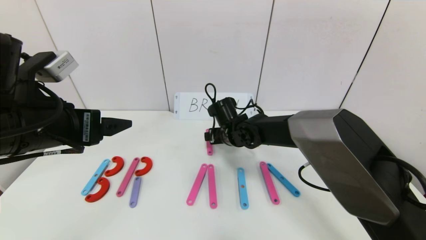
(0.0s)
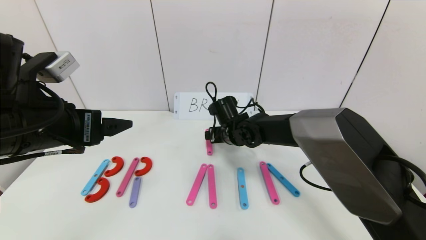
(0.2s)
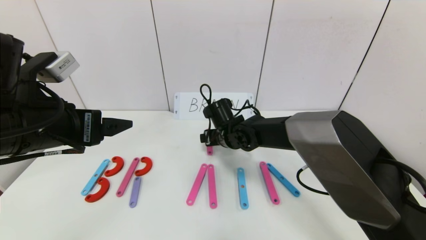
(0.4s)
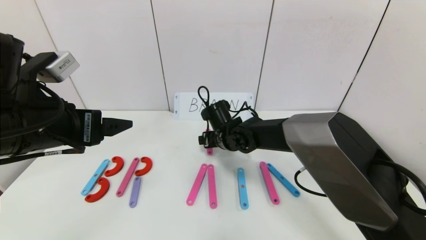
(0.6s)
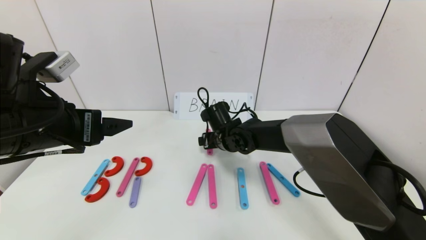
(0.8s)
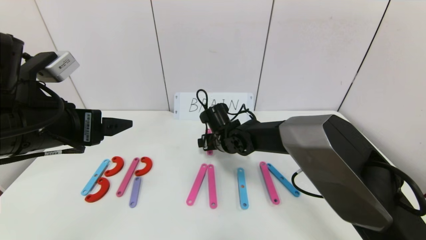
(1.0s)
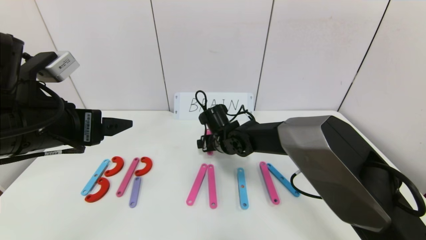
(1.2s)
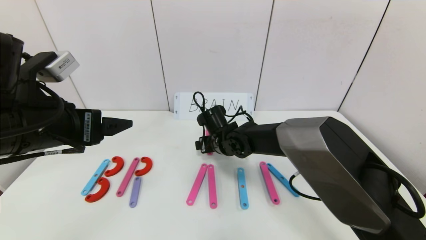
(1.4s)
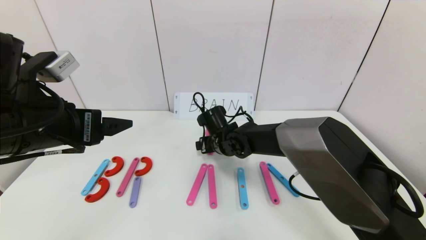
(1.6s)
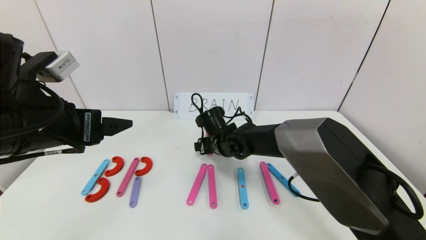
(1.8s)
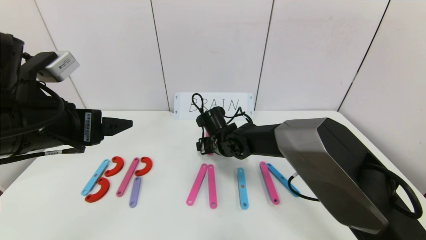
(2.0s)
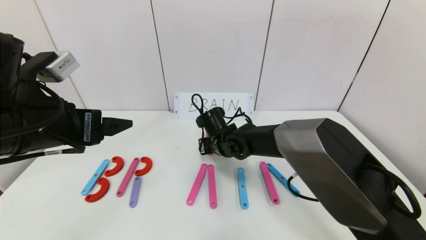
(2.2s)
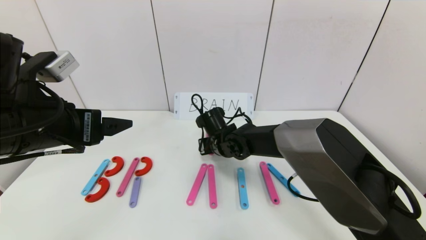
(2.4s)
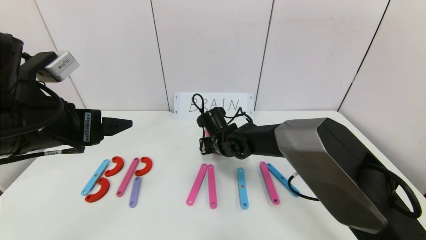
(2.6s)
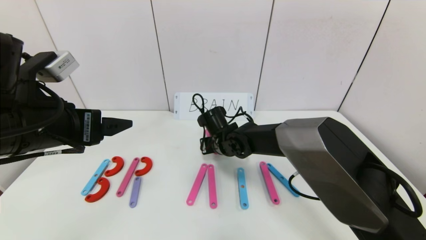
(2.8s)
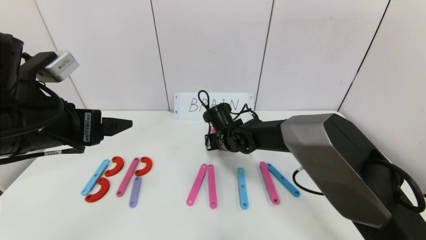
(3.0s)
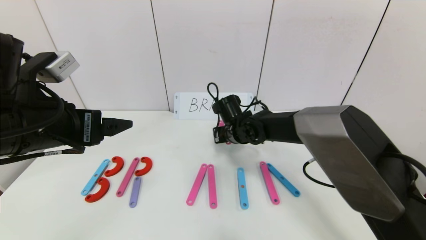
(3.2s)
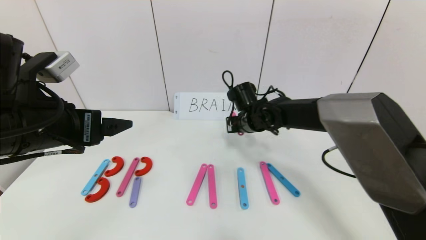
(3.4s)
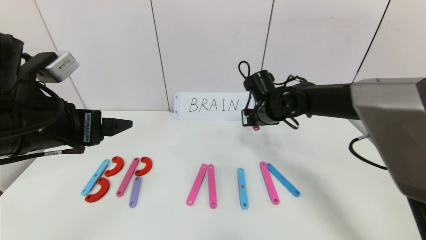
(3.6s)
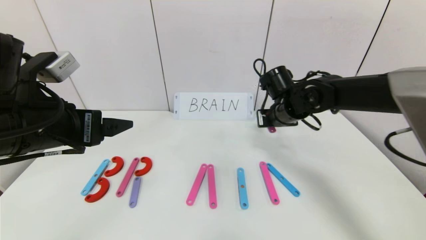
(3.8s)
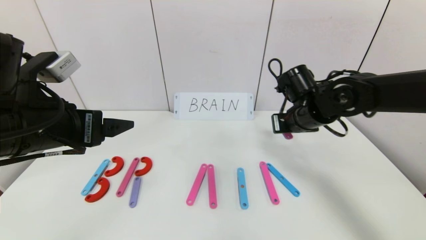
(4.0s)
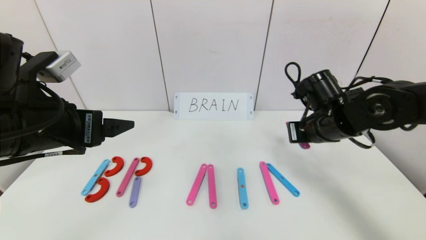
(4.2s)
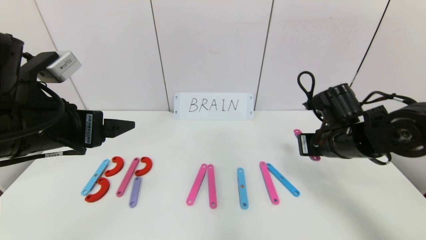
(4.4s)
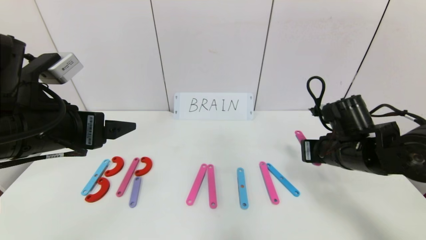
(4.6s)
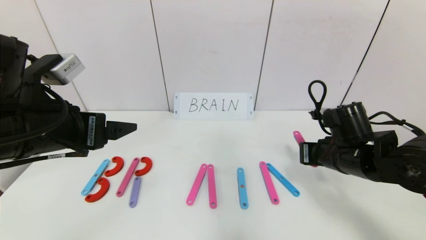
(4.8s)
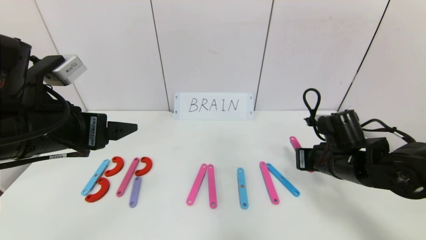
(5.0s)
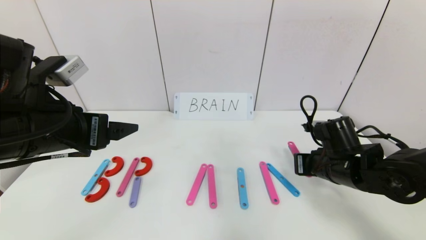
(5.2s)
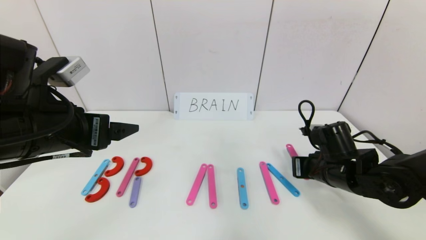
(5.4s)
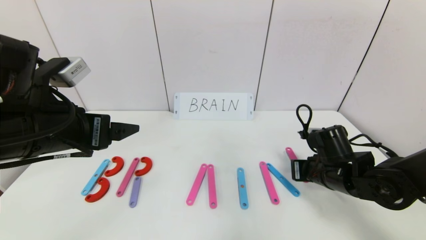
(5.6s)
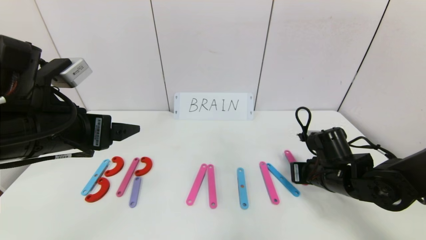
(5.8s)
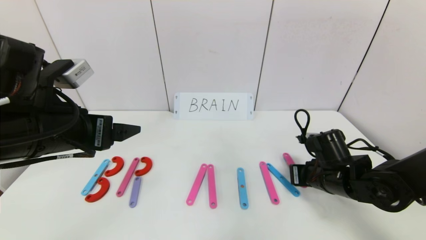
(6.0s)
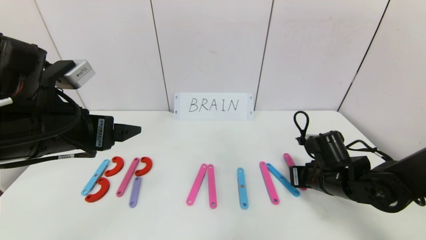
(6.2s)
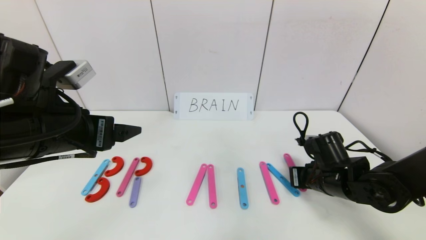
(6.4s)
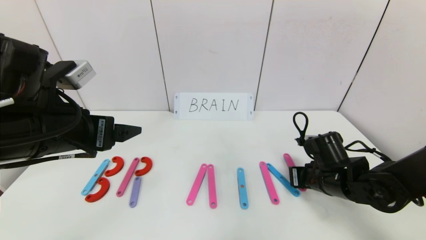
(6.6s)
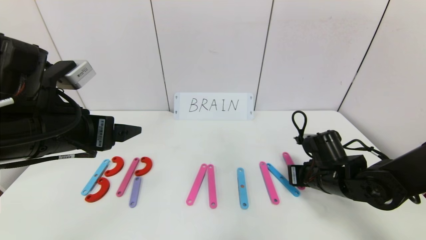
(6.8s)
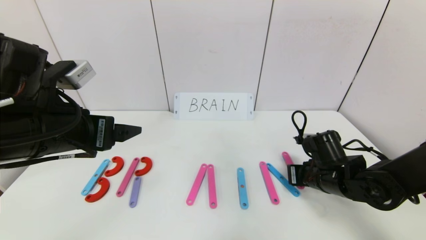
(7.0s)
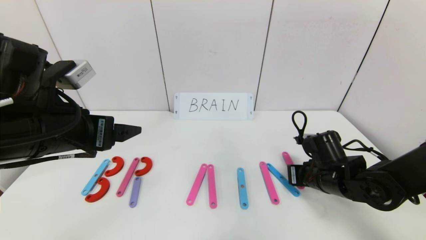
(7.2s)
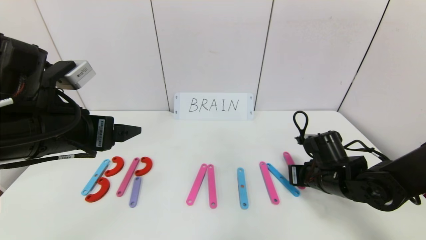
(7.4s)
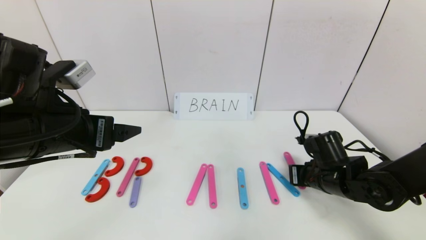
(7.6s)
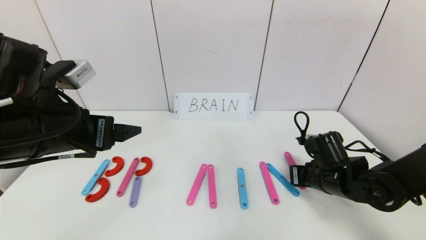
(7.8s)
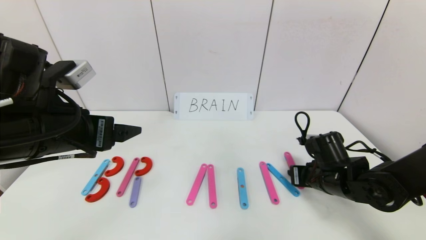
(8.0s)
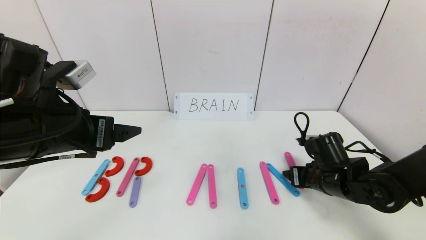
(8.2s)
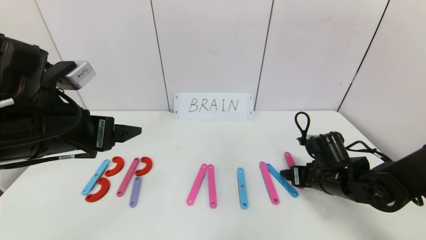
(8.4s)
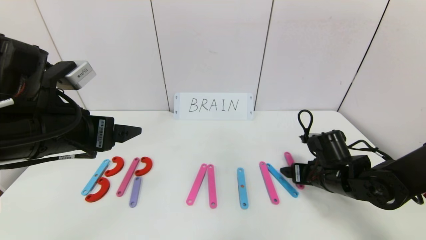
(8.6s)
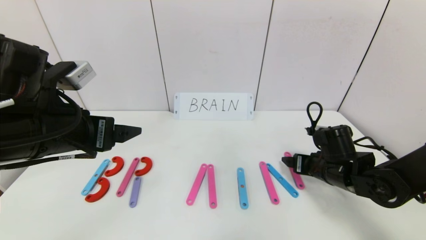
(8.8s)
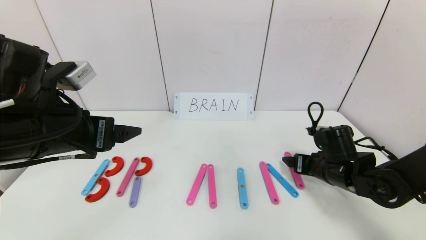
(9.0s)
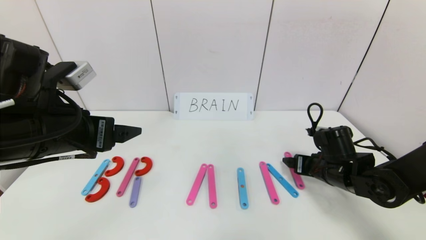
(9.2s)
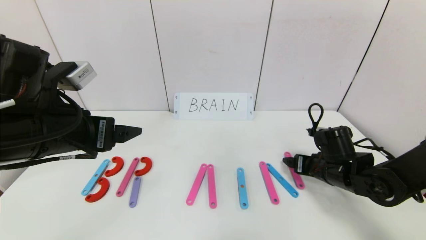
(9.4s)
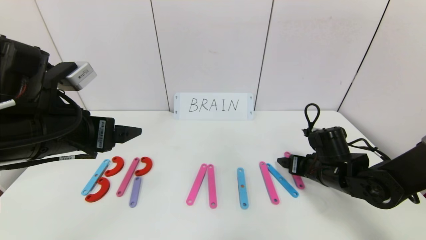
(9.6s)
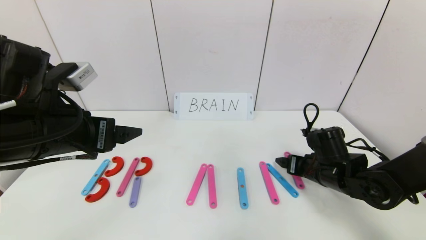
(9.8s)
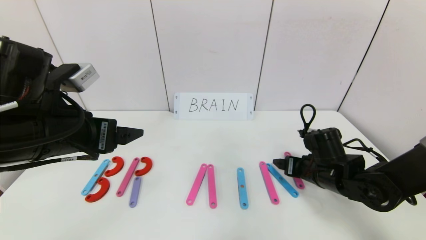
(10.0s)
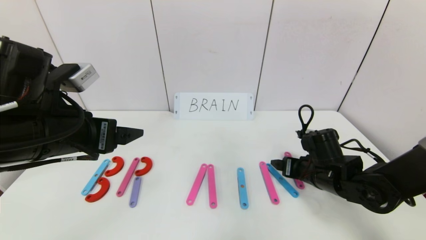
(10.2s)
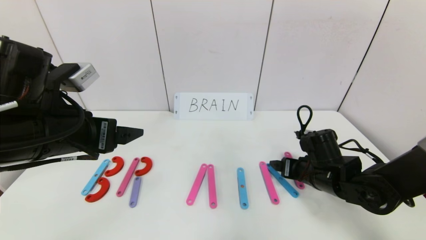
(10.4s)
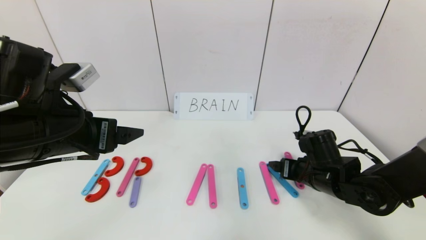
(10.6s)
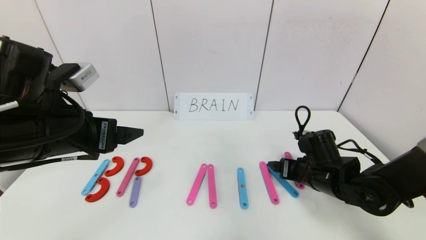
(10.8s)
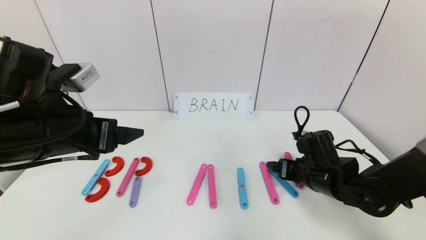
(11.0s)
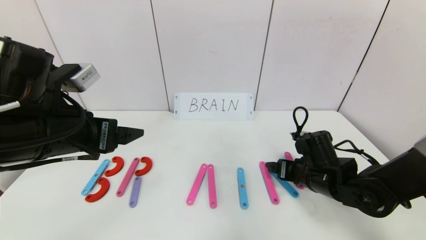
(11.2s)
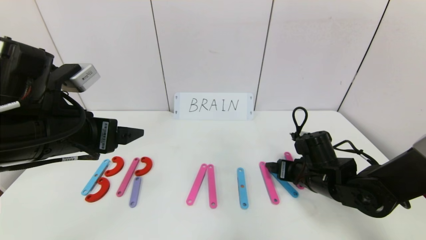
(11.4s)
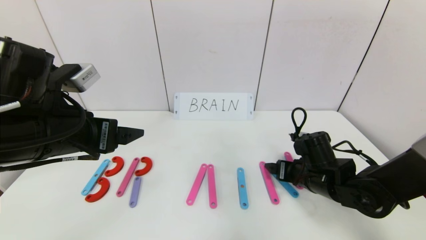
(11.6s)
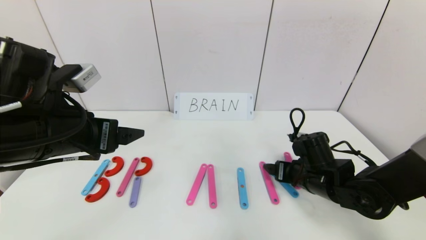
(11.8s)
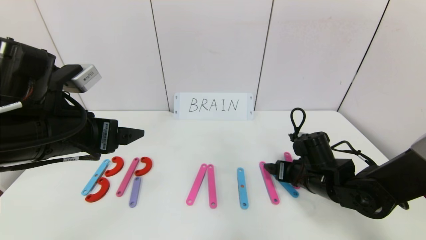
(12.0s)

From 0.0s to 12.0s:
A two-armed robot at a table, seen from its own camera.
Task of the whole recording: rearrange the word baai as brain.
From 0.0s to 1.6s: The grippers stay close to where they were, moving slightly.
From 1.6s to 3.0s: The right gripper closes its fingers.
From 3.0s to 4.4s: The right gripper shifts some 25 cm to the right, backward and upward.
From 4.4s to 6.0s: The right gripper heads downward, covering some 10 cm.
From 6.0s to 7.6s: Both grippers stay about where they are.
From 7.6s to 9.0s: The right gripper opens up.
From 9.0s to 12.0s: There are only small adjustments of the grippers.

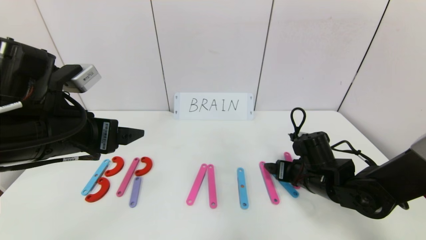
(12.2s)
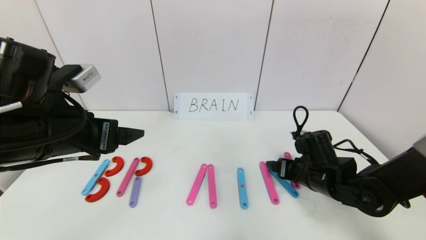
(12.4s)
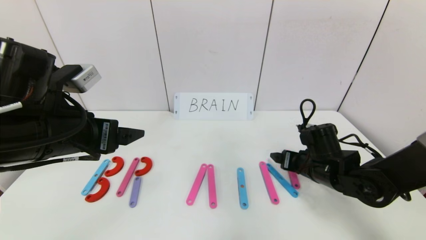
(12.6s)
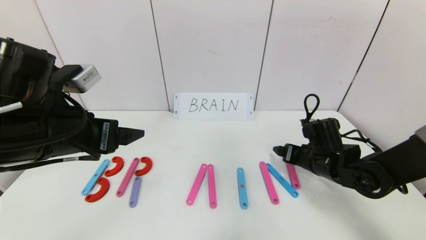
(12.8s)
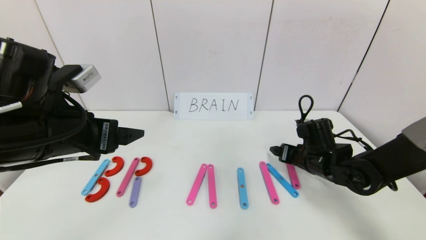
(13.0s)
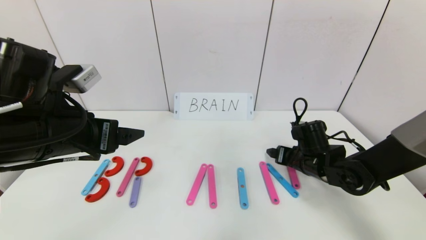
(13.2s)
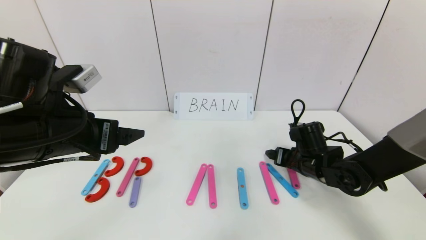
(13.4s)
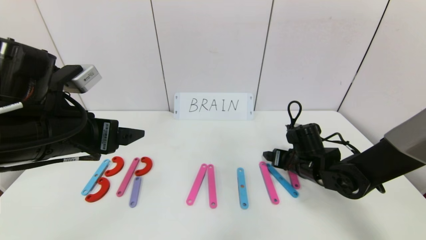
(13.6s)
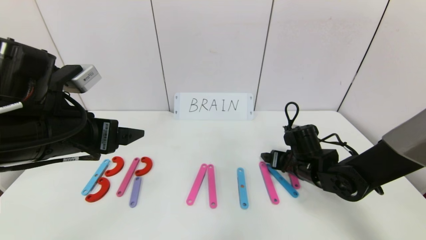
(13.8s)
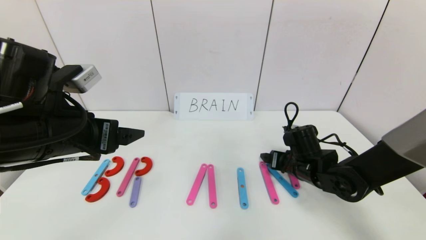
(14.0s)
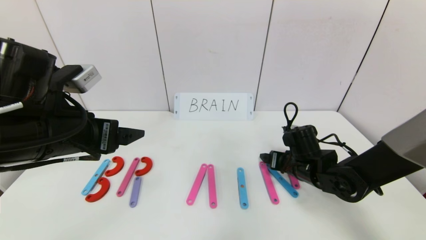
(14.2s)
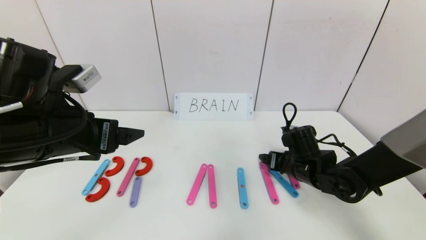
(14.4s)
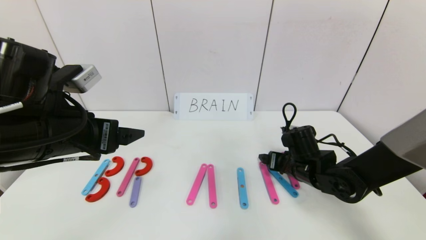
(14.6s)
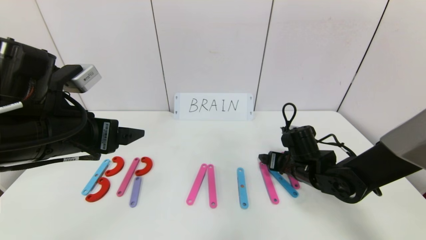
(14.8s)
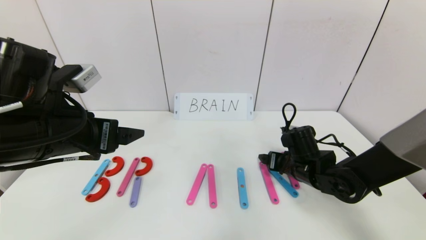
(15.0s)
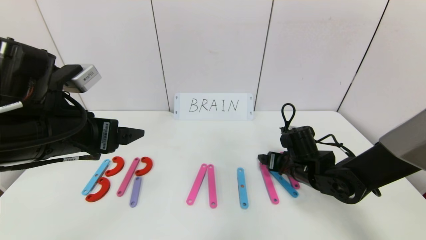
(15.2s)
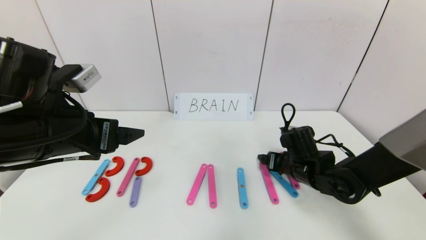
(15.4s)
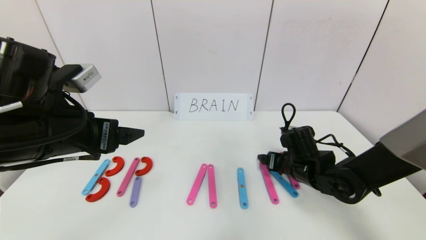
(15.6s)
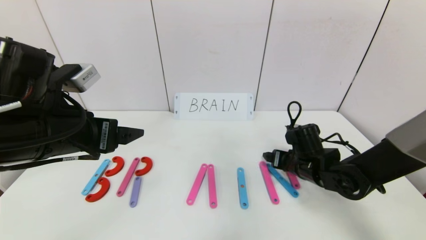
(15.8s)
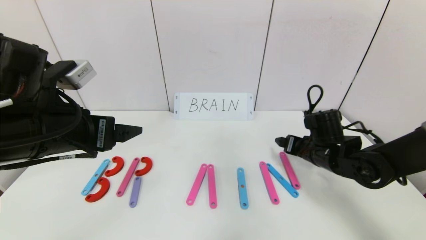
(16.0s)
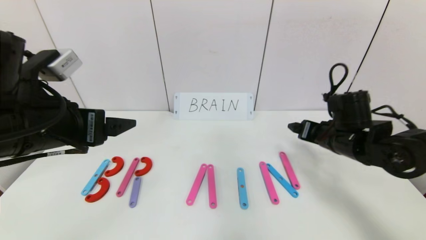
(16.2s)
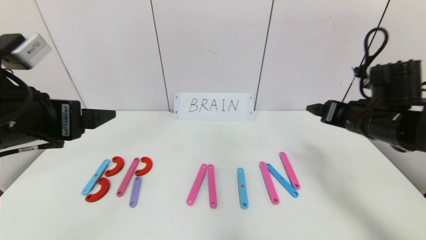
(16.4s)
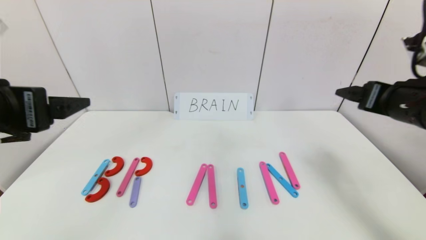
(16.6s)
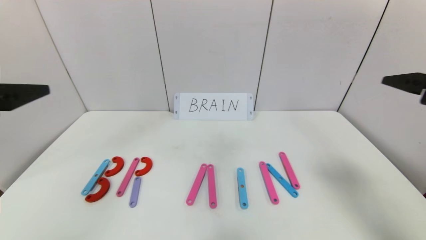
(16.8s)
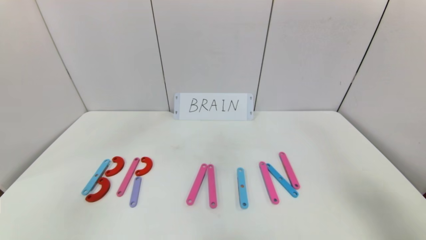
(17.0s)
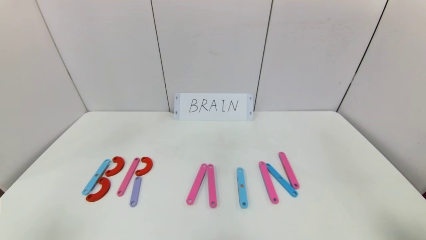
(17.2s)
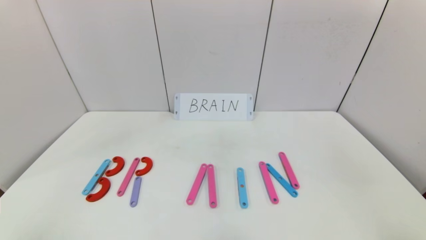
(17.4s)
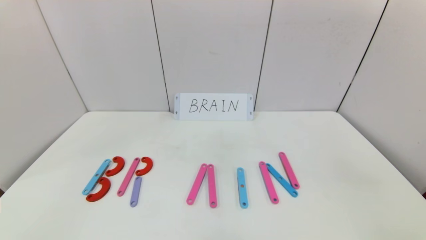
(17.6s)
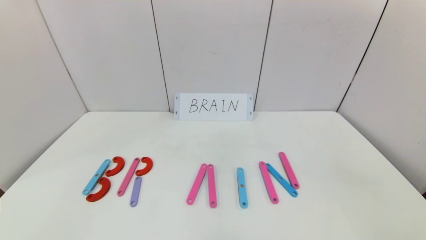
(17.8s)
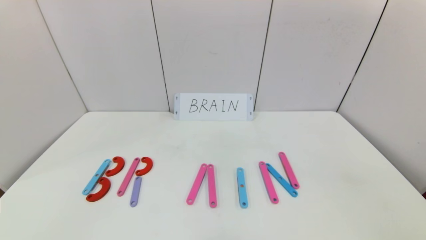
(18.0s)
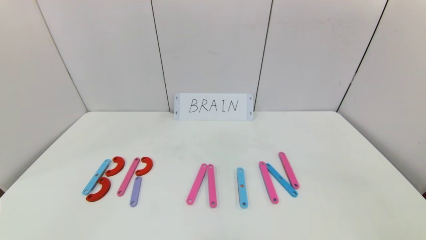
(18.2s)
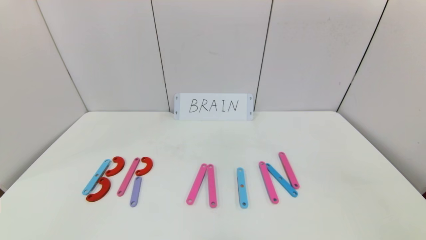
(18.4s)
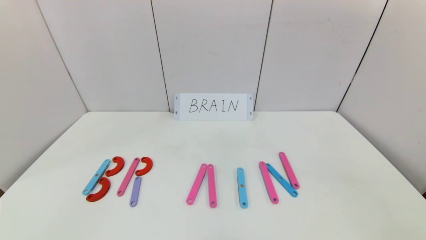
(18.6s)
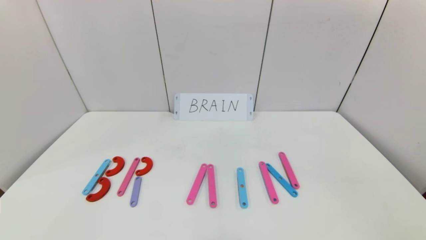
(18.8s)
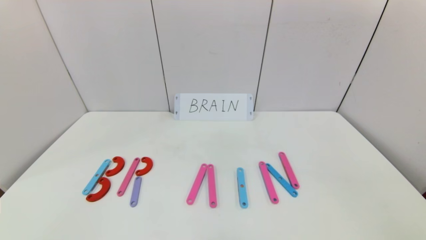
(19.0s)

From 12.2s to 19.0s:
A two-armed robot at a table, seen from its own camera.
Task of the whole recording: rearrange the word baai as brain.
Step, from 12.2s to 16.0s: Place the character N after character I.
From 12.2s to 15.0s: The grippers move only a little.
From 15.0s to 16.2s: The right gripper moves upward and to the right, roughly 10 cm.
From 16.2s to 17.6s: The left gripper moves backward and to the left, about 25 cm, while the right gripper travels backward by roughly 40 cm.
